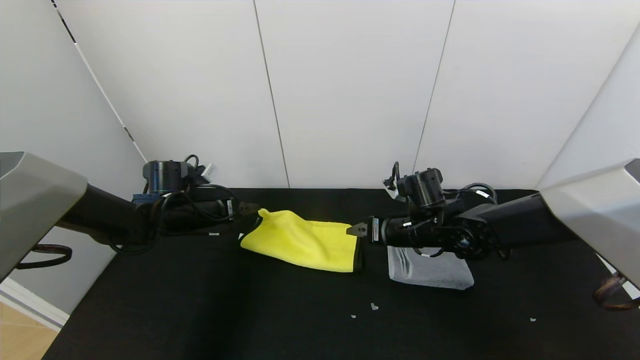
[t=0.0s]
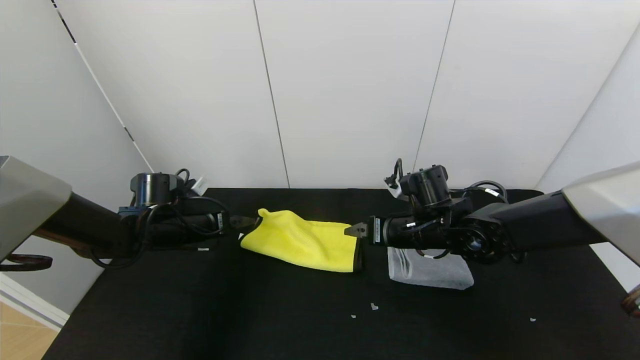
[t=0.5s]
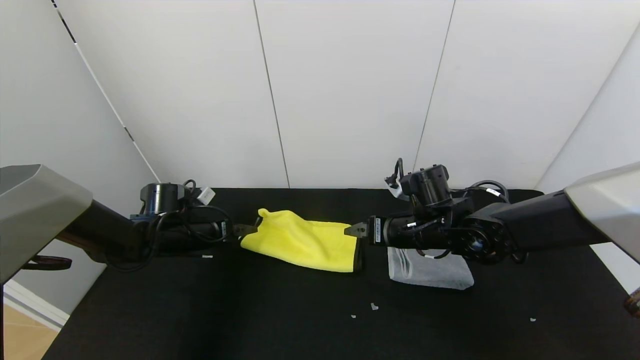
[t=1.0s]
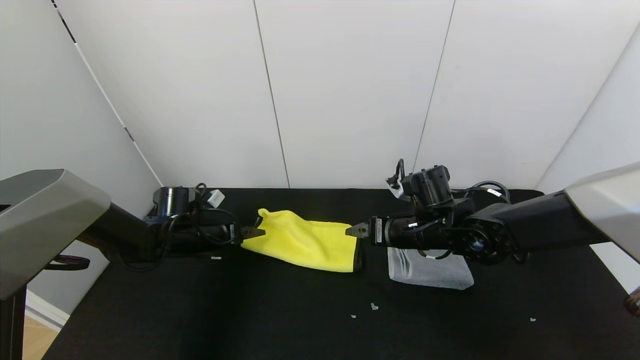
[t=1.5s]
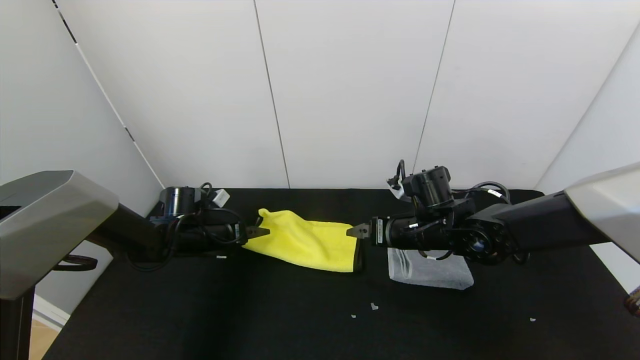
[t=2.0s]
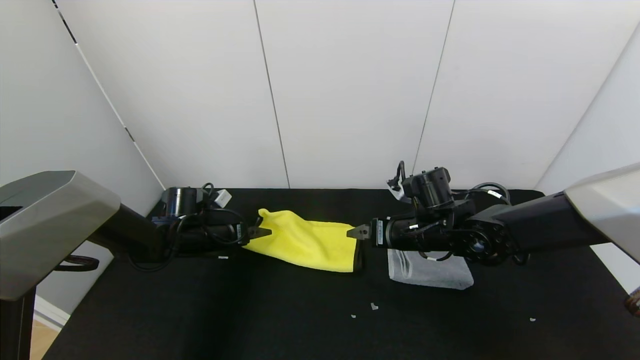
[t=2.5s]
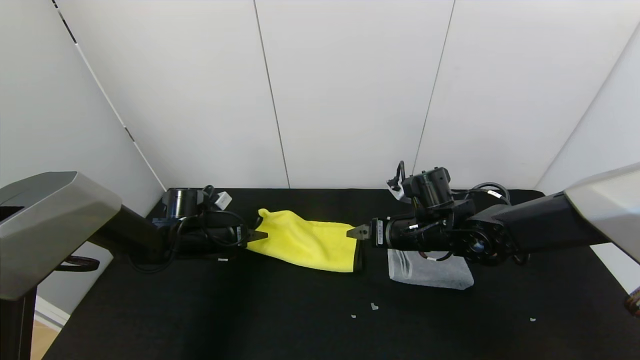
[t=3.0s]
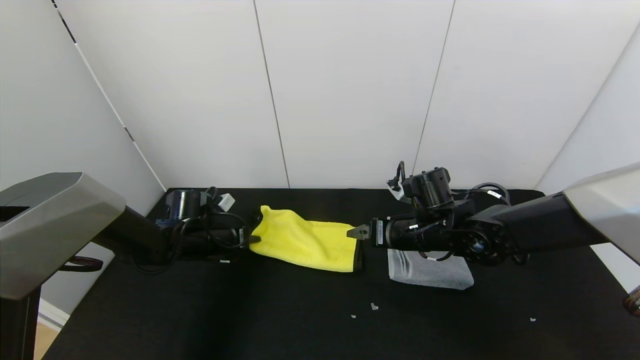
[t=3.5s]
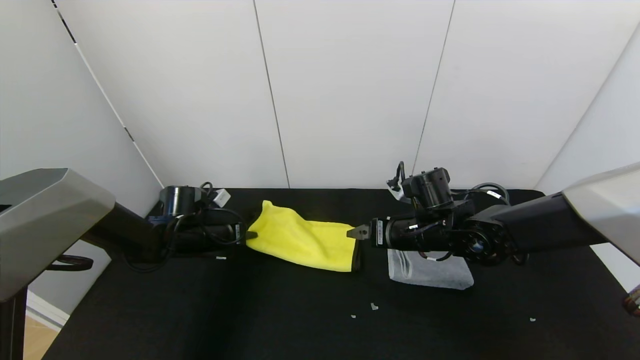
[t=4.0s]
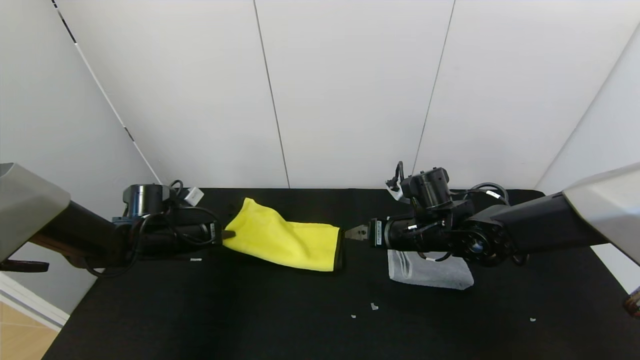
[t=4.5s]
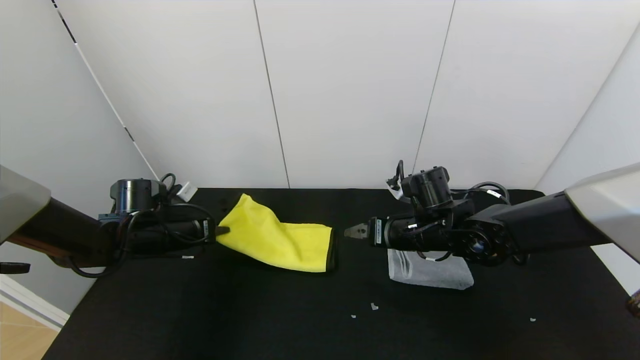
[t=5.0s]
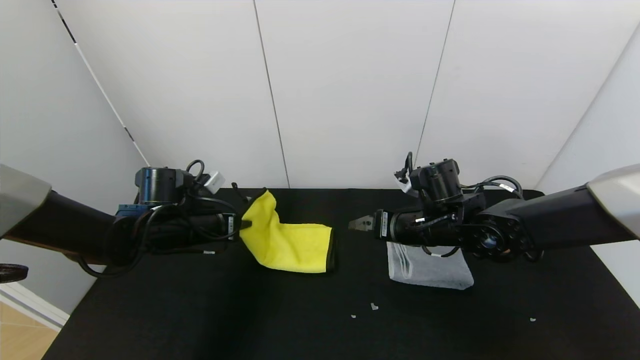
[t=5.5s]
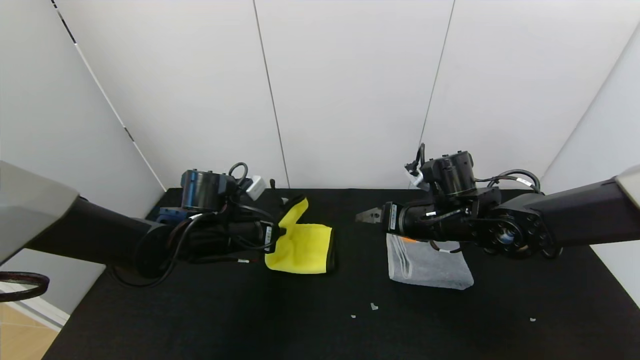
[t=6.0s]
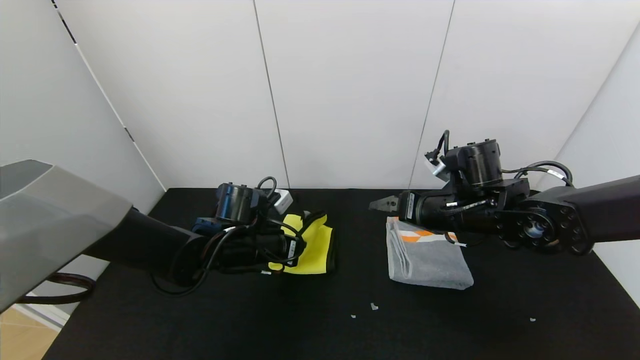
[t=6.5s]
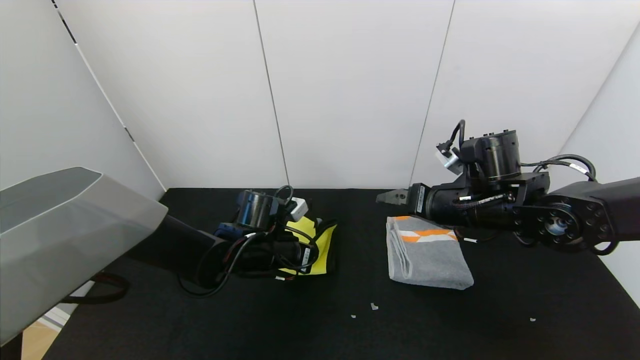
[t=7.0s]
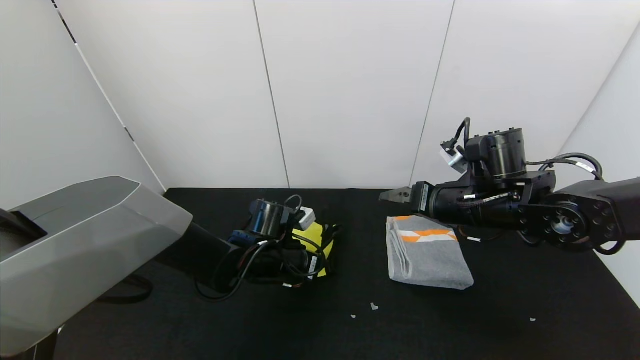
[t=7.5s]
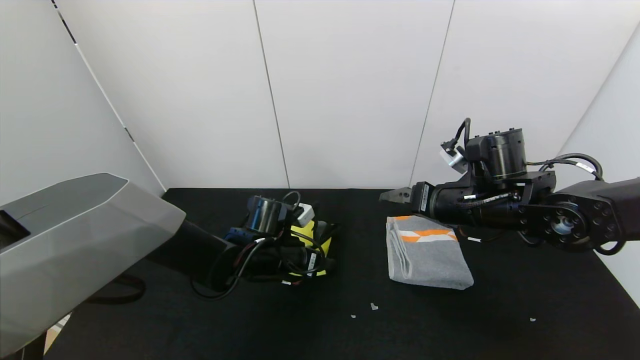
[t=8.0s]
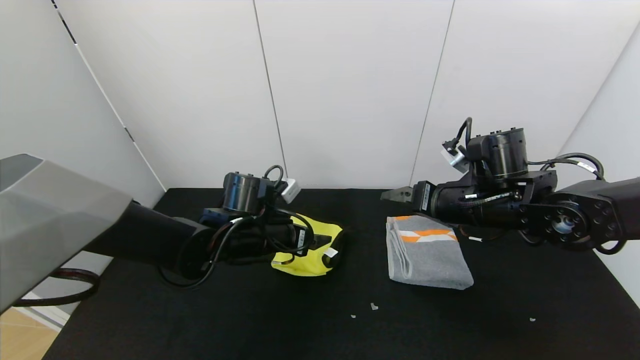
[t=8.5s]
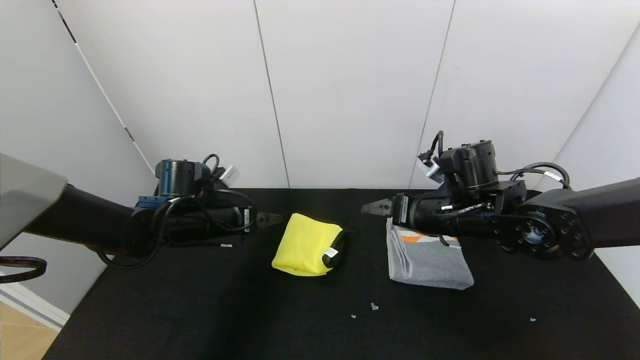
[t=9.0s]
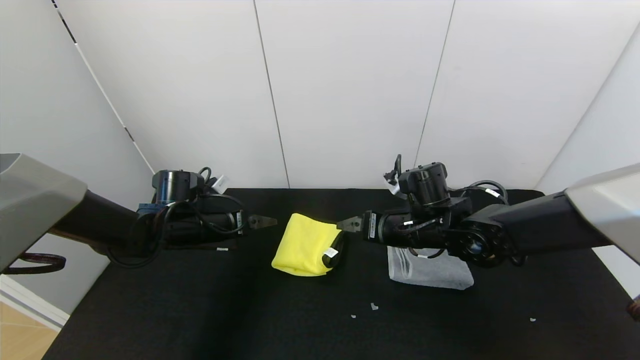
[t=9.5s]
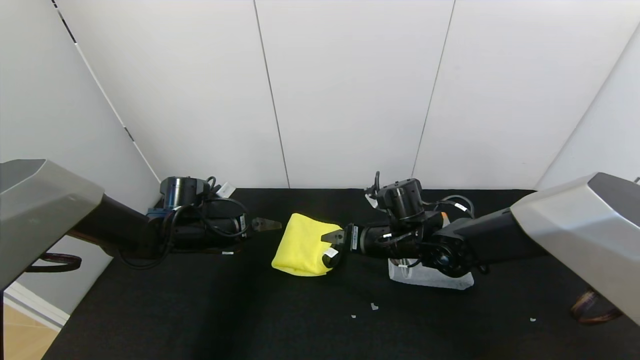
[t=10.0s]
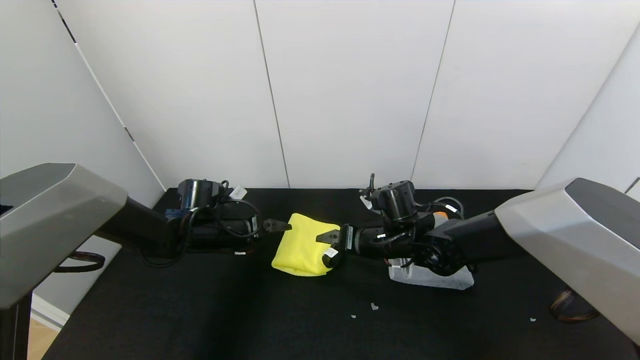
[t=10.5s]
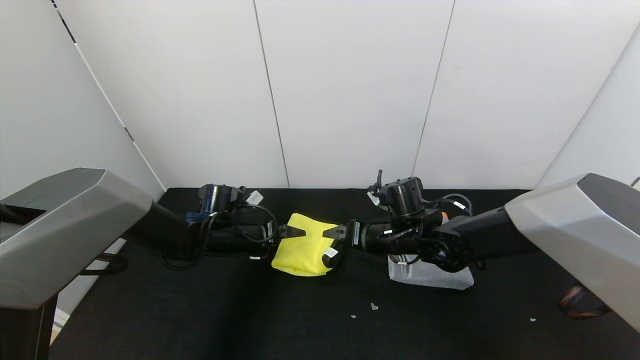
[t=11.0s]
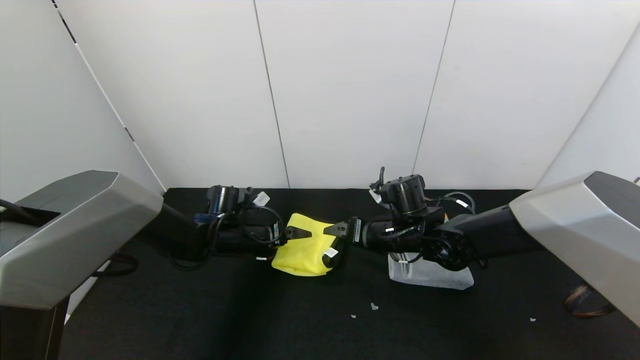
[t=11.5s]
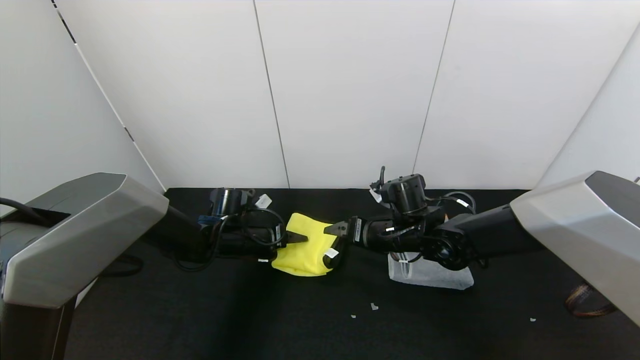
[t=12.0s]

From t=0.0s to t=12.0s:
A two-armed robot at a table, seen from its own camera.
Task of the whole recording: Use the gripper to fold the yellow towel and grey towel in half twice,then put the yellow towel on the grey towel.
Step, from t=0.5s to t=8.5s: Fold the yellow towel from left to right with left gripper.
From t=0.0s to t=2.0s: The left gripper moves downward, roughly 5 cm.
From t=2.0s to t=4.0s: The left gripper closes.
From t=4.0s to t=6.0s: The left gripper heads to the right, backward and upward, covering about 15 cm.
From t=6.0s to t=8.0s: The right gripper changes place by some 5 cm. Meanwhile the left gripper heads to the right and downward, covering roughly 10 cm, and opens up.
From t=8.0s to t=10.0s: The left gripper travels to the left by some 15 cm; the right gripper goes some 15 cm to the left and downward.
From t=10.0s to t=12.0s: The left gripper travels to the right by roughly 5 cm, and closes.

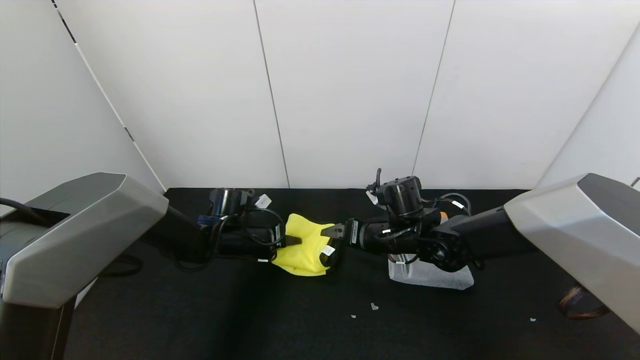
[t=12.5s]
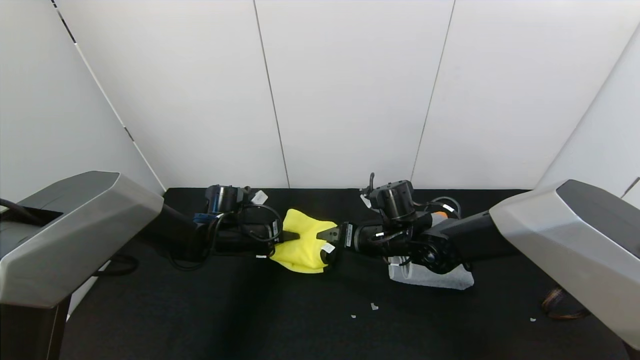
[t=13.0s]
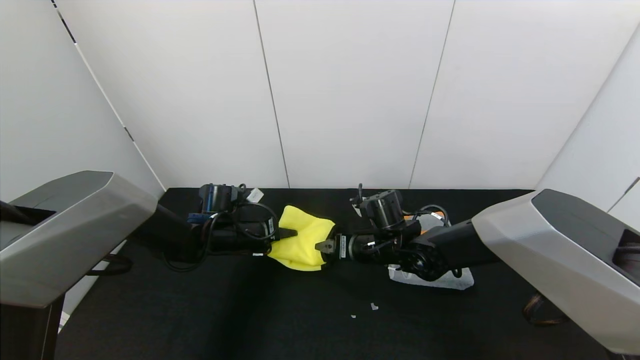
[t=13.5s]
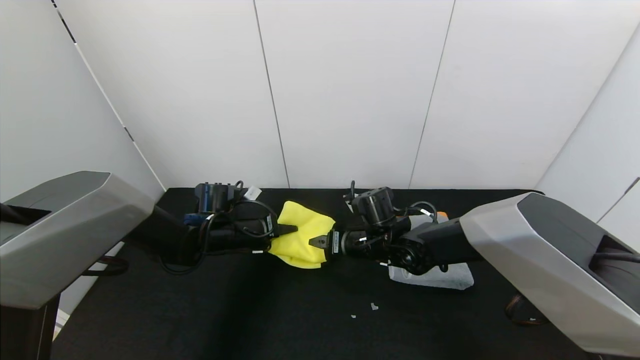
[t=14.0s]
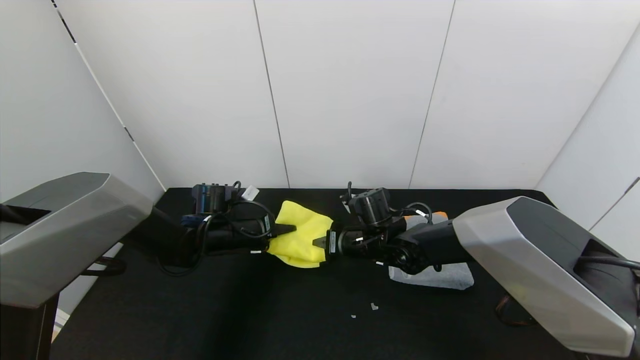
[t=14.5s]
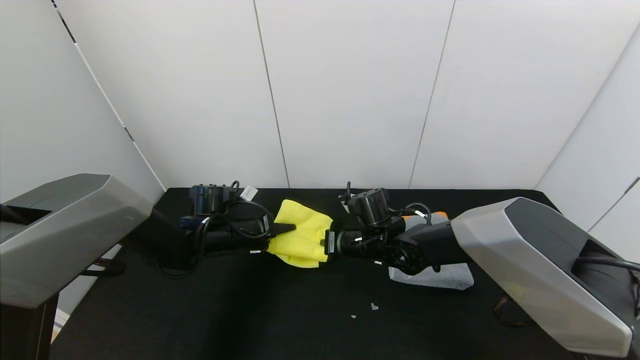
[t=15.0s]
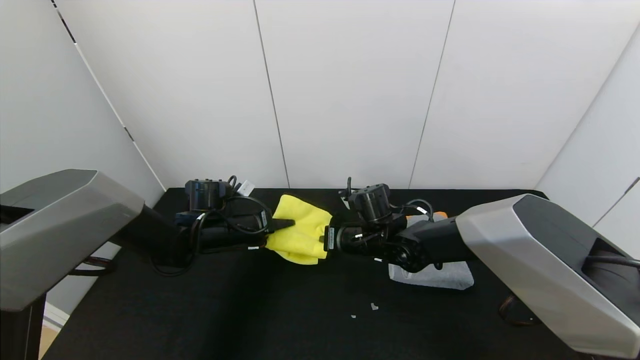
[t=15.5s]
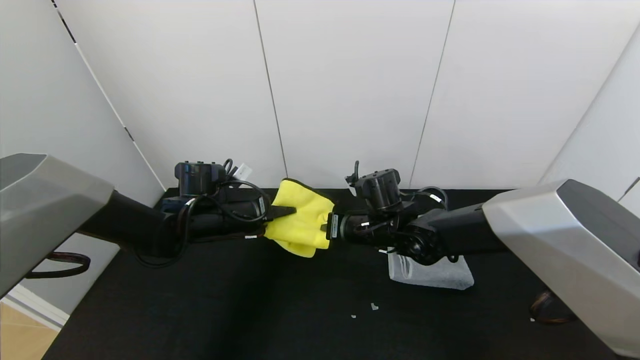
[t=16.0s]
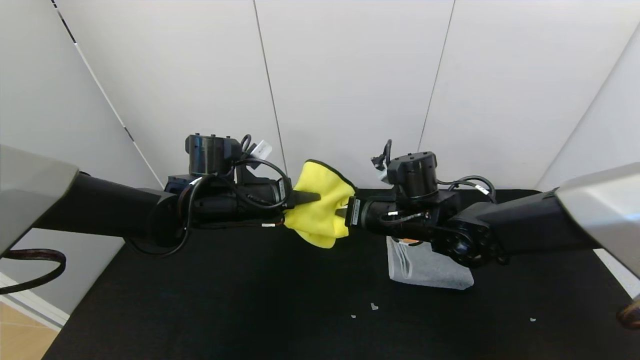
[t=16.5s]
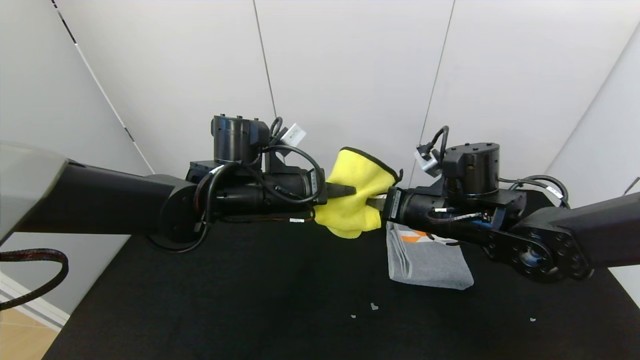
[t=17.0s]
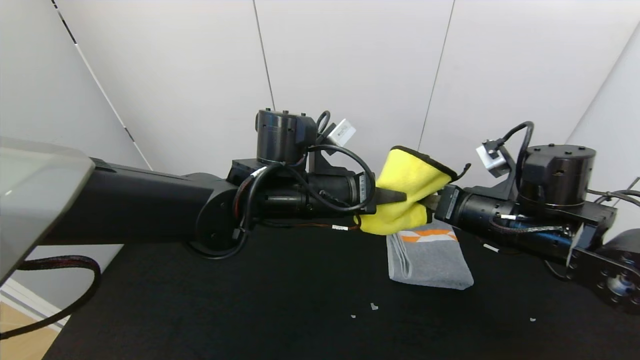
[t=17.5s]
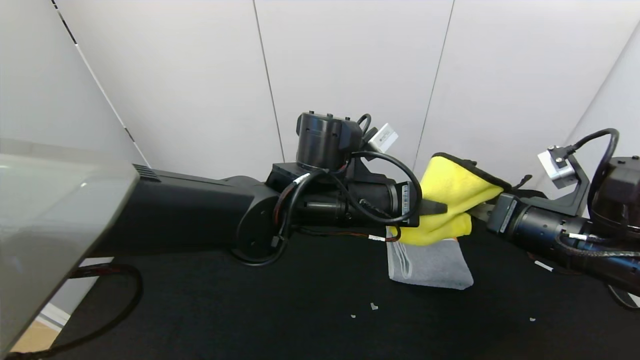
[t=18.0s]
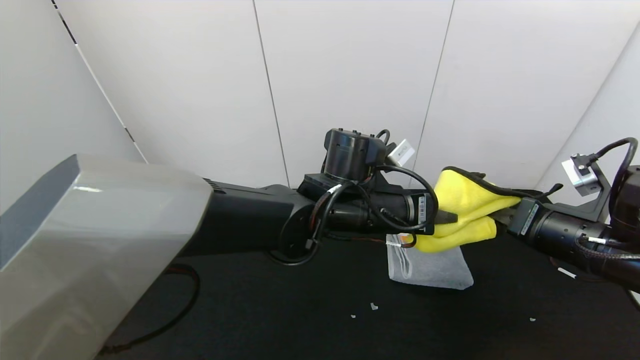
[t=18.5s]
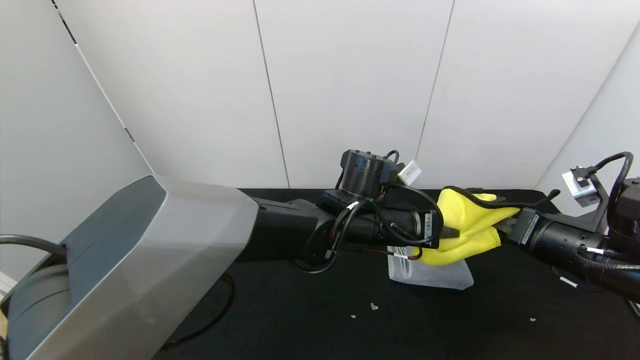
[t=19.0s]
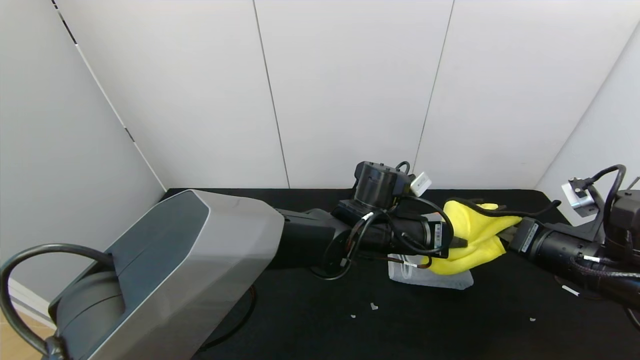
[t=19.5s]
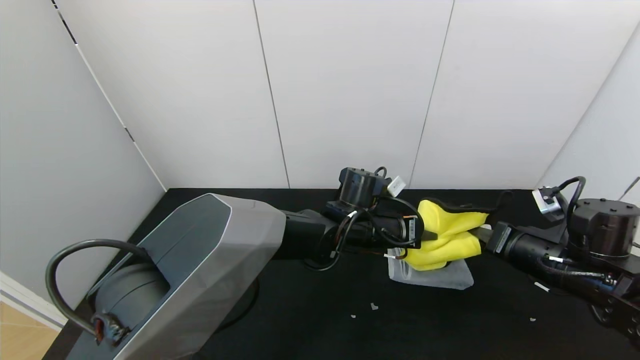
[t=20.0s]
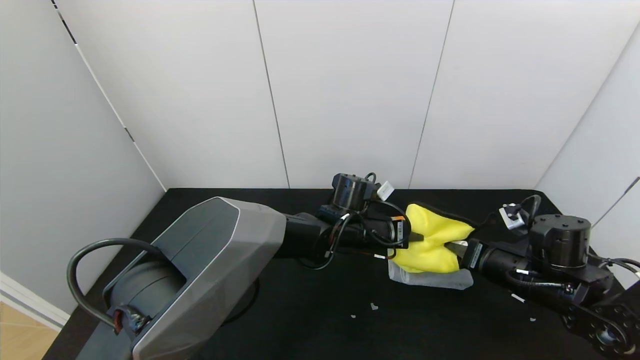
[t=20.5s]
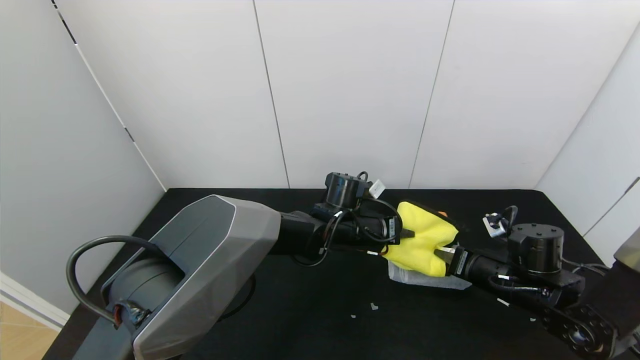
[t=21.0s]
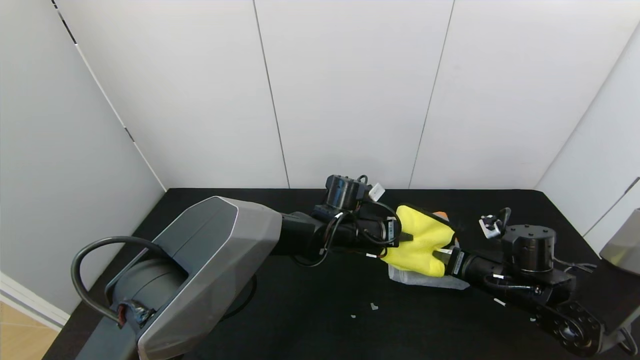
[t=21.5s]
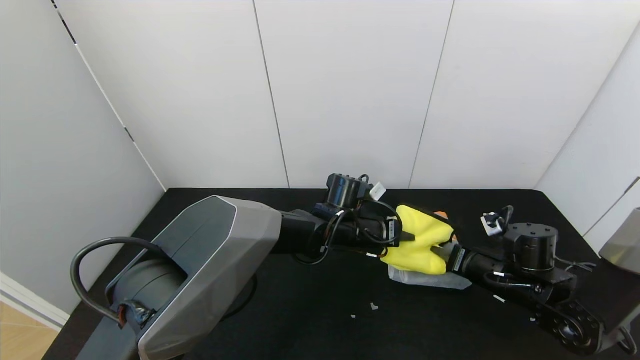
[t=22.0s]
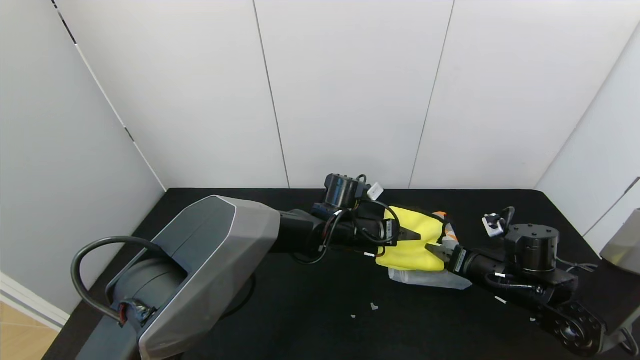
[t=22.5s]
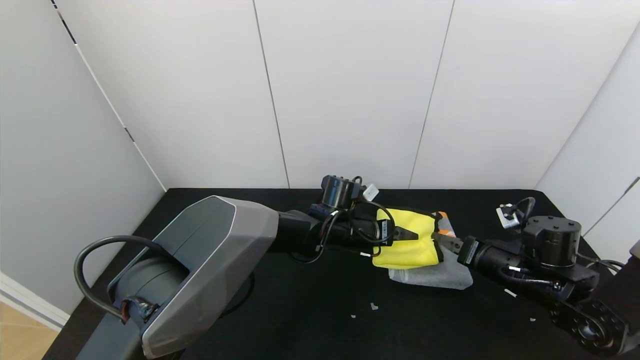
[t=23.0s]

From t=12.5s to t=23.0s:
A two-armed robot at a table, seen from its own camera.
Task of the whole recording: Use the gripper to fold the yellow towel and grey towel in half twice,then put the yellow towel on the grey towel.
From t=12.5s to t=14.5s: The right gripper changes place by about 5 cm, and closes.
From t=14.5s to t=16.5s: The right gripper moves upward, approximately 10 cm, and closes. Meanwhile the left gripper moves upward, to the right and backward, some 15 cm.
From t=16.5s to t=19.0s: The right gripper moves to the right and backward, roughly 25 cm, while the left gripper shifts roughly 20 cm to the right.
From t=19.0s to t=21.0s: The right gripper is displaced downward and forward by some 10 cm. Meanwhile the left gripper is displaced forward and downward by about 10 cm.
From t=21.0s to t=23.0s: The right gripper opens, while the left gripper opens its fingers.
